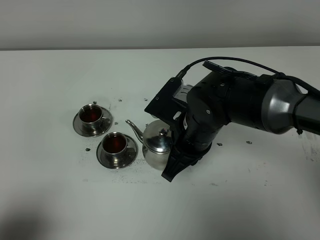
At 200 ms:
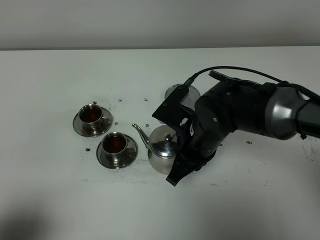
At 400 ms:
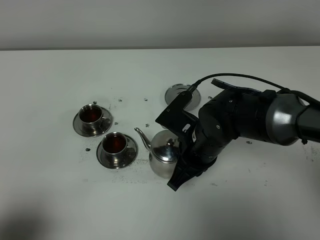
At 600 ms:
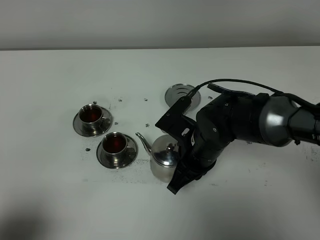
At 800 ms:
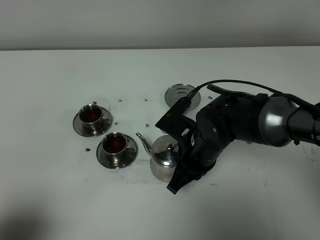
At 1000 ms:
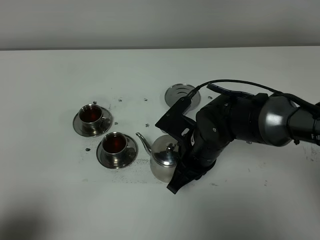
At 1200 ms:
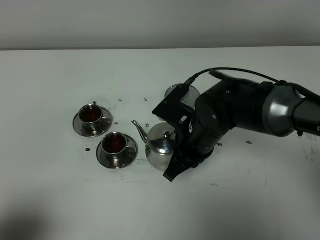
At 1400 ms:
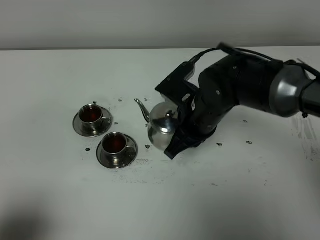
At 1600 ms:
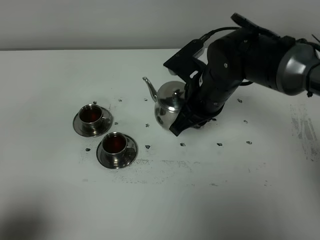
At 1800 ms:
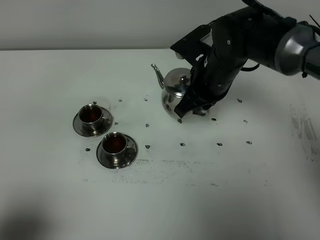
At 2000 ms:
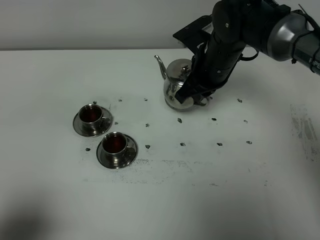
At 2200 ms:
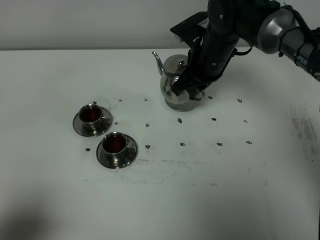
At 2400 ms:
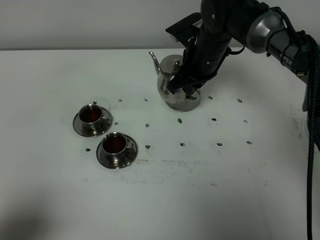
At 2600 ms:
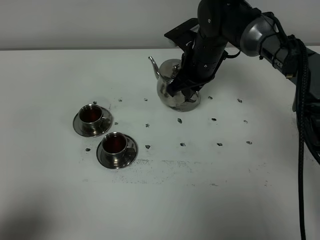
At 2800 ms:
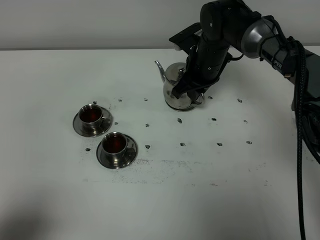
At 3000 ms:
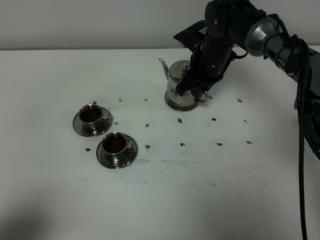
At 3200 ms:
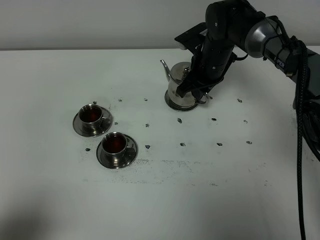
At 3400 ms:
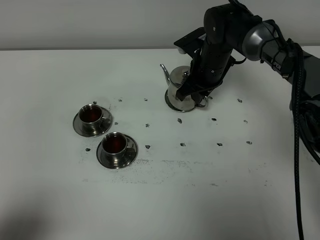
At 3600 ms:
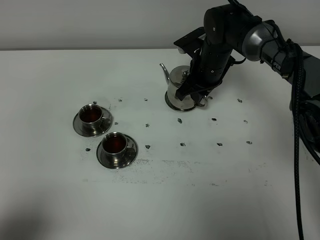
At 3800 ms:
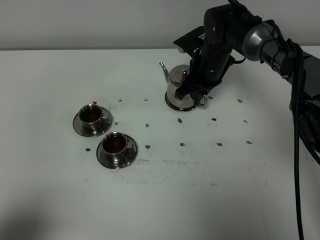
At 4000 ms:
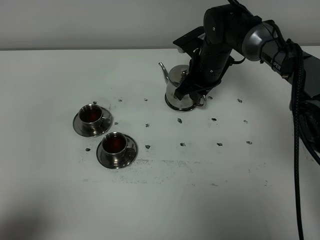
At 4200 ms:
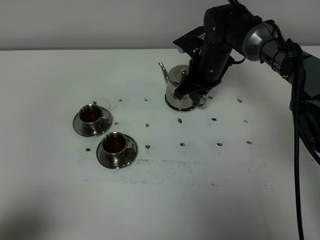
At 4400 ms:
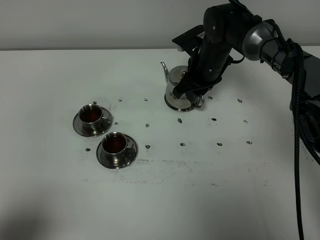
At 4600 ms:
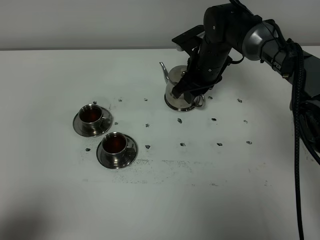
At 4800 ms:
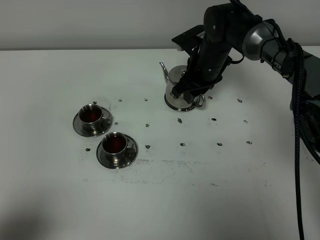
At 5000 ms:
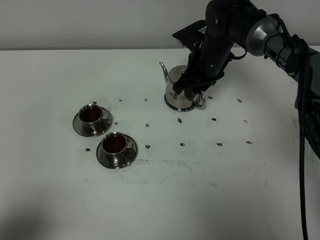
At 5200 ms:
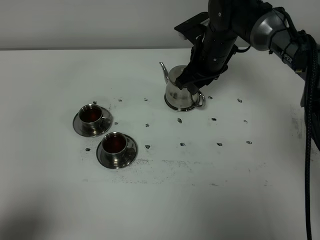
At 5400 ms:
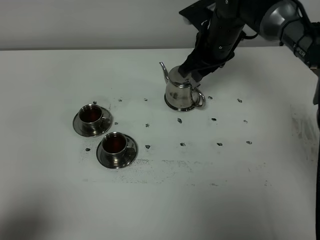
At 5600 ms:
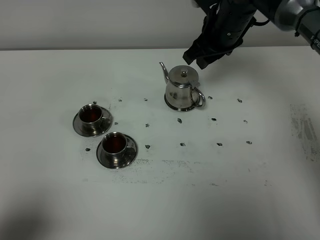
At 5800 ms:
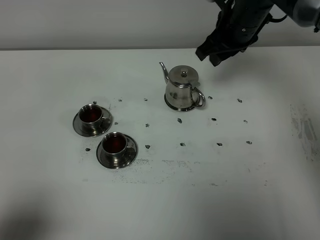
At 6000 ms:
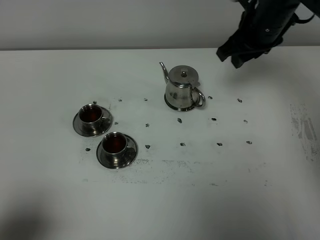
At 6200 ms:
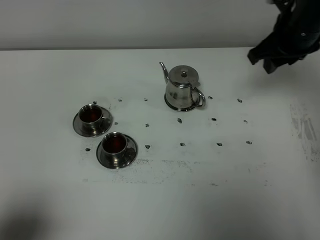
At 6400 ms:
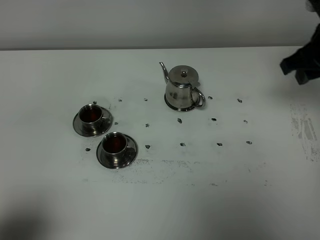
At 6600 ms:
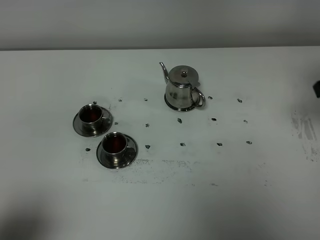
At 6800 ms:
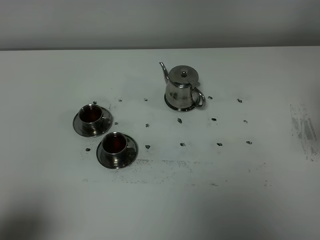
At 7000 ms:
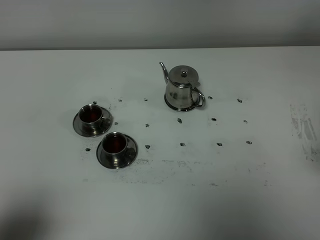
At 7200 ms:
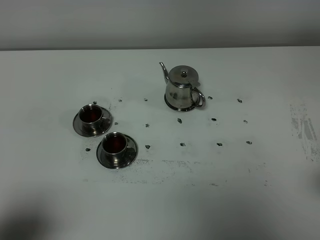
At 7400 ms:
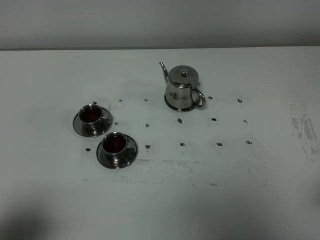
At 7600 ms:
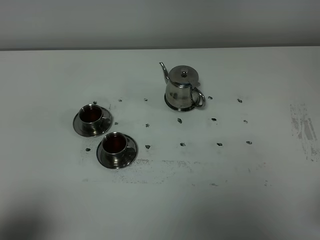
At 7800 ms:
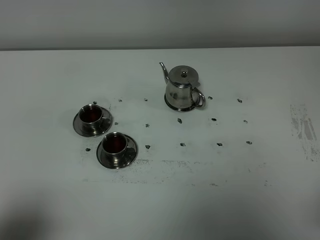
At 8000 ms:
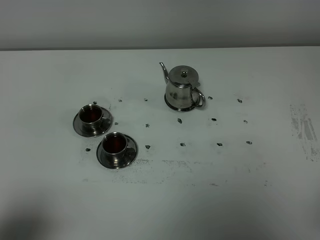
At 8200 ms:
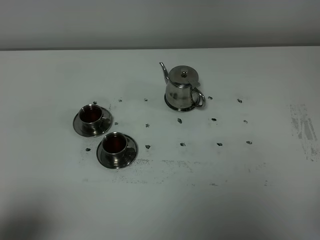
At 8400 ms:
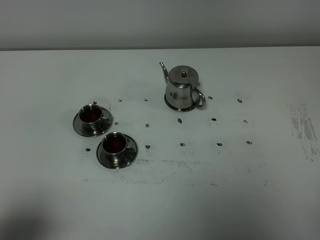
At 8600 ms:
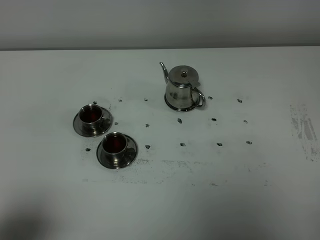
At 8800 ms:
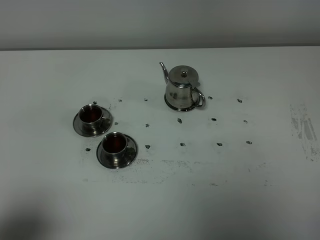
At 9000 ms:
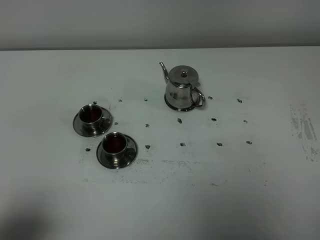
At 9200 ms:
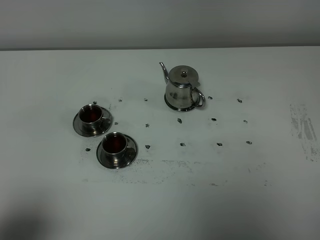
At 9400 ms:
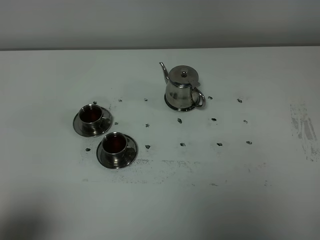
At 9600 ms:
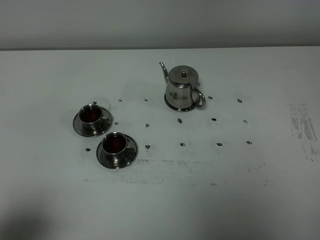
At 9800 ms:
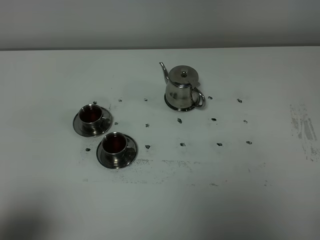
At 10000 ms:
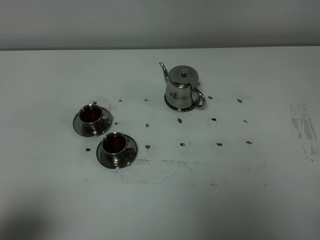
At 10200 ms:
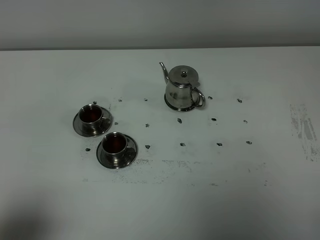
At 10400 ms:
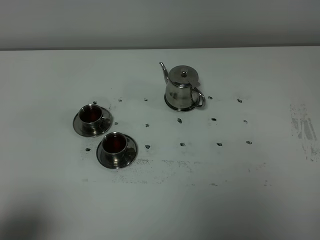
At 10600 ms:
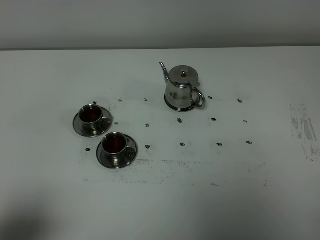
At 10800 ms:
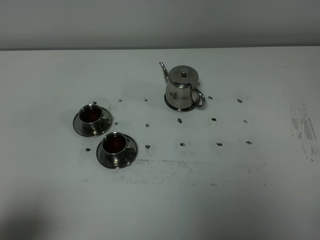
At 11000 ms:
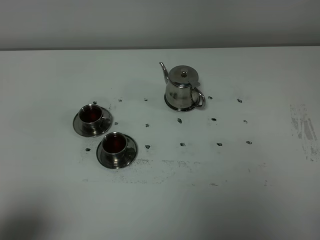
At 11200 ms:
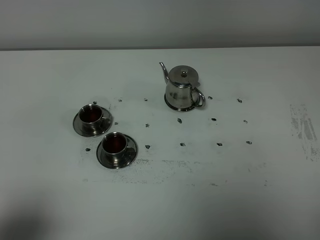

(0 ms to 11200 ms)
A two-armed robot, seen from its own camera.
Task of the whole recording: grasp the stainless steel teapot and pour the tea into the two stainless steel teacups one by one, put the stainless steel teapot back in its original place.
0 ms - 1600 ms: The right gripper shifts about 5 cm forward.
1600 ms - 3200 ms: The right gripper moves forward, some 10 cm.
3200 ms - 4800 ms: The right gripper opens.
4800 ms - 6400 ms: The right gripper heads to the right, upward and backward, covering some 25 cm.
6400 ms - 8000 ms: The right gripper travels backward by roughly 30 cm.
9600 ms - 11200 ms: Both grippers stay put.
